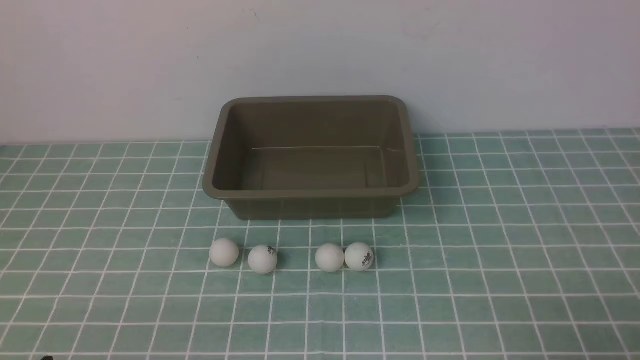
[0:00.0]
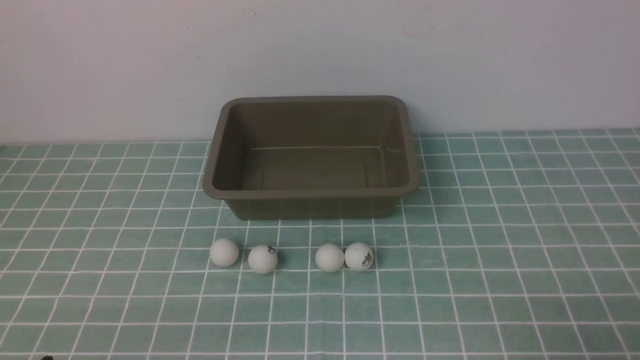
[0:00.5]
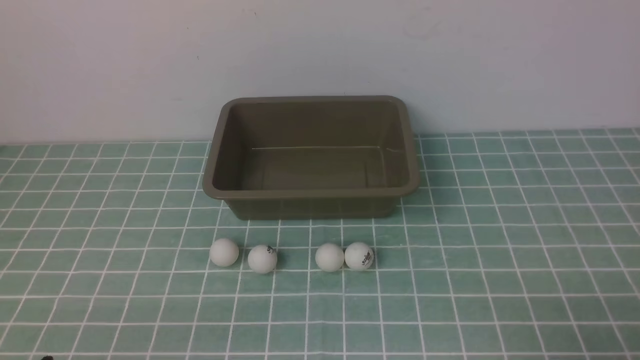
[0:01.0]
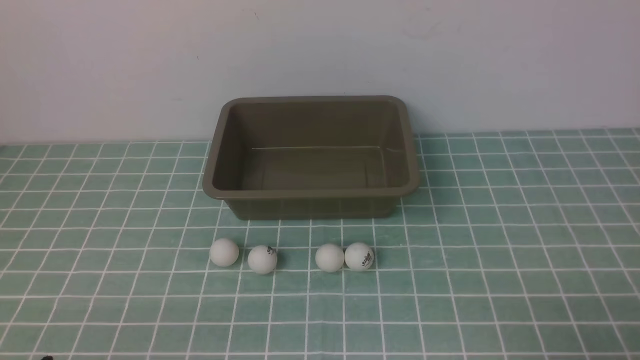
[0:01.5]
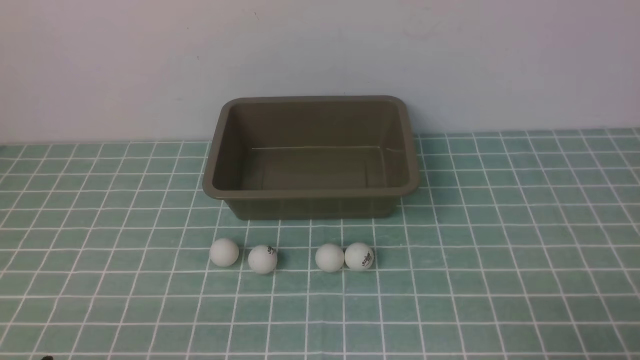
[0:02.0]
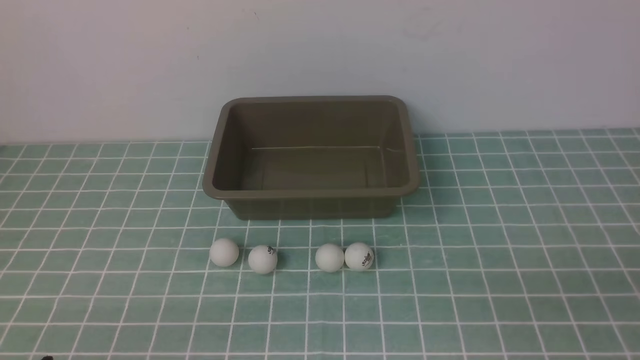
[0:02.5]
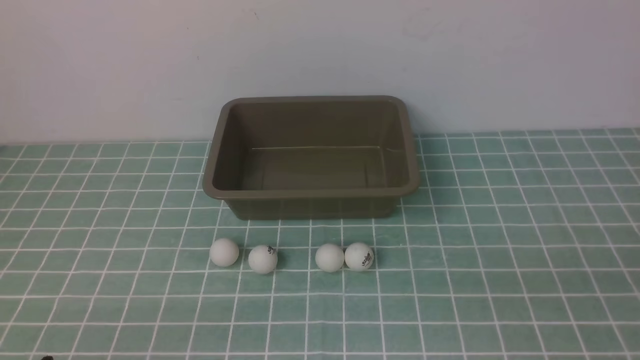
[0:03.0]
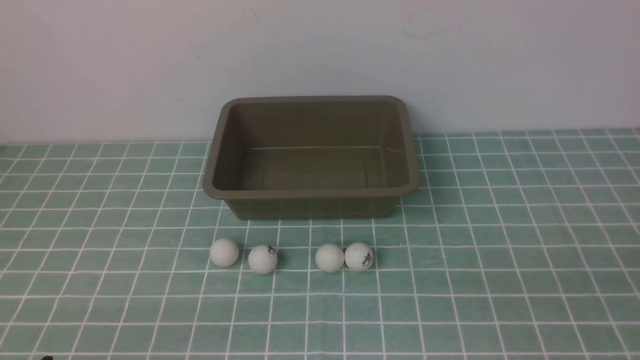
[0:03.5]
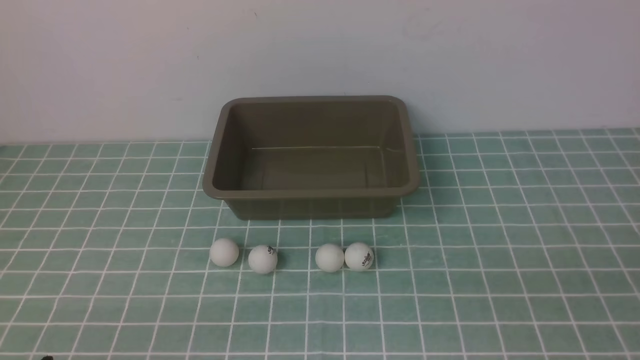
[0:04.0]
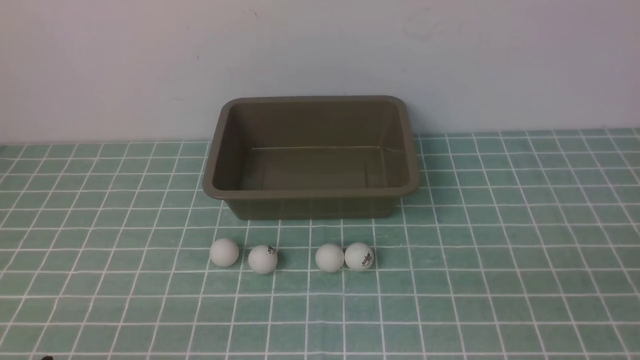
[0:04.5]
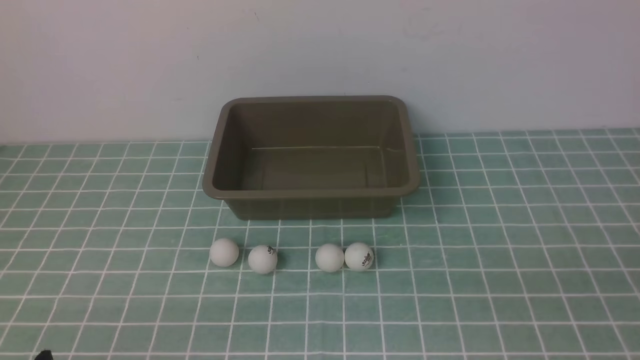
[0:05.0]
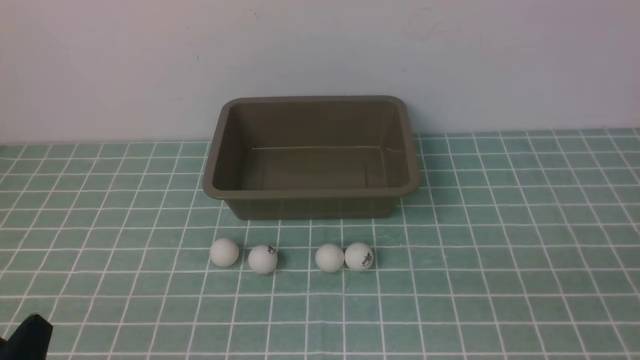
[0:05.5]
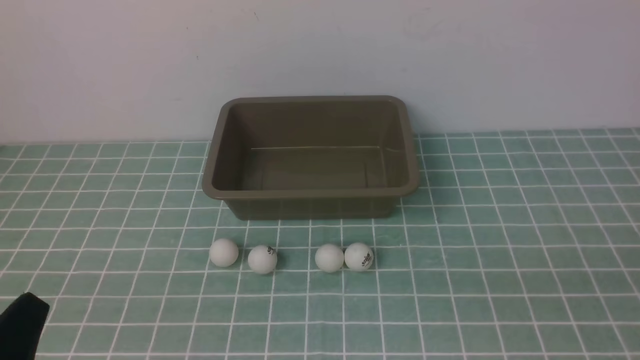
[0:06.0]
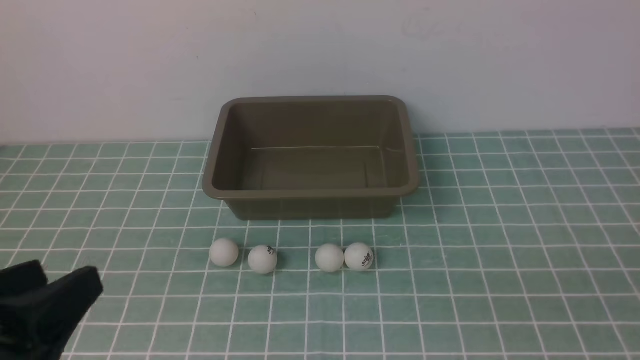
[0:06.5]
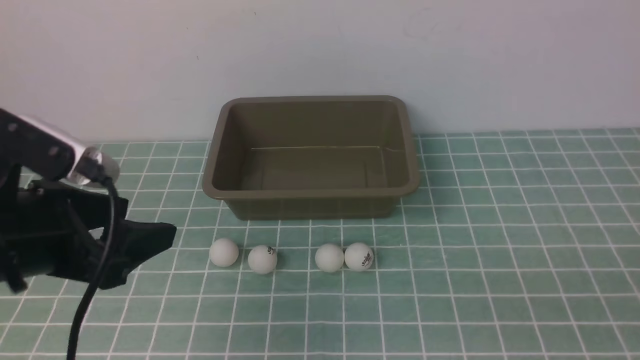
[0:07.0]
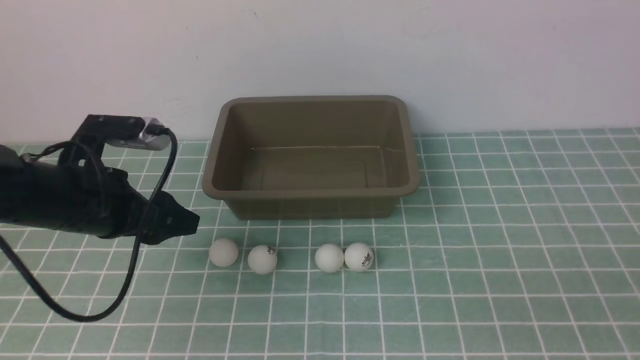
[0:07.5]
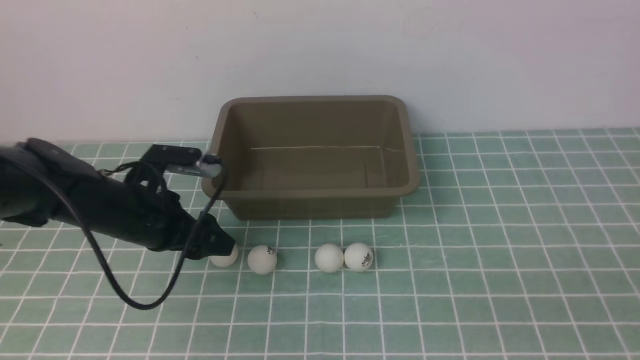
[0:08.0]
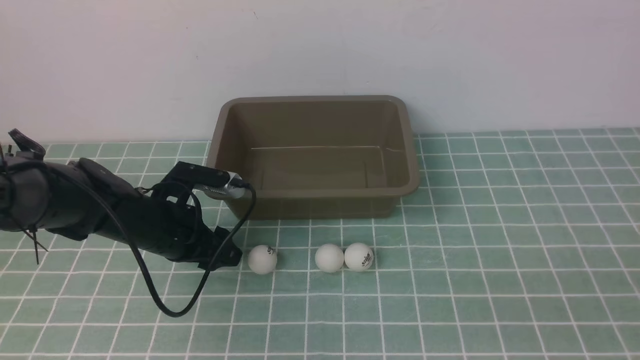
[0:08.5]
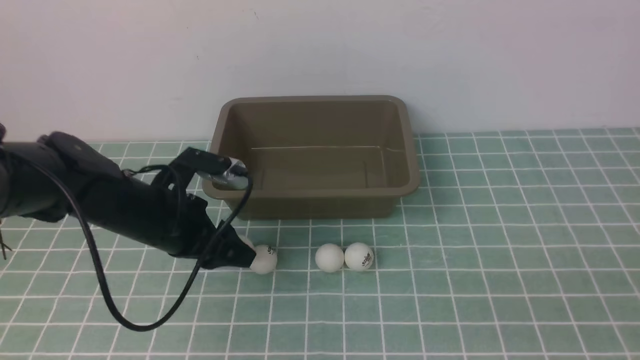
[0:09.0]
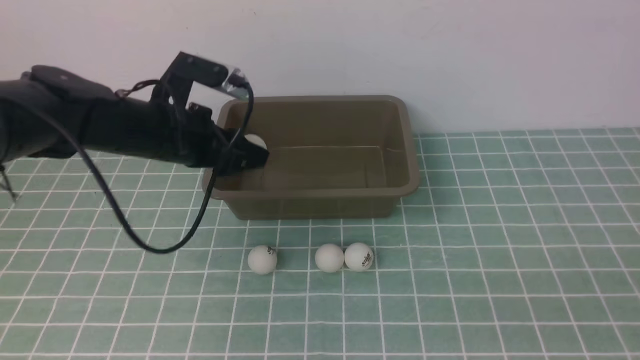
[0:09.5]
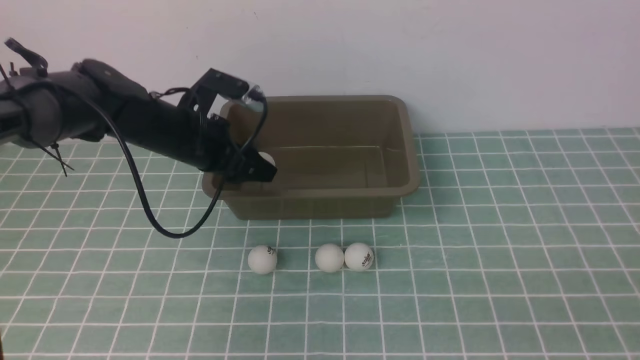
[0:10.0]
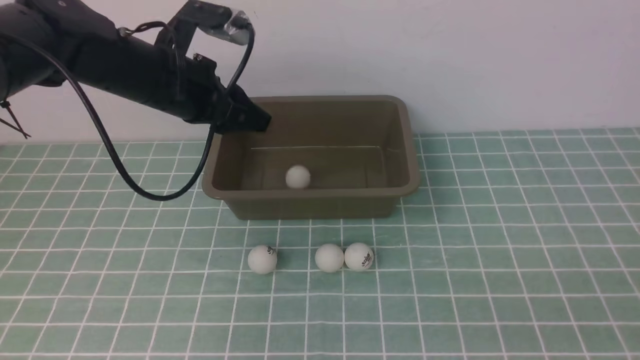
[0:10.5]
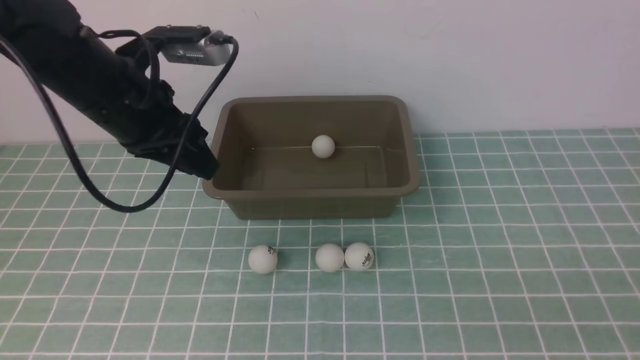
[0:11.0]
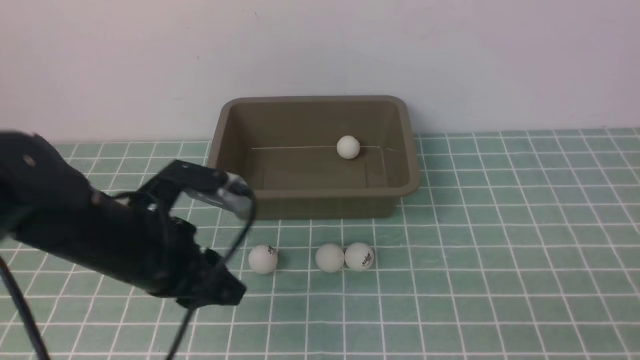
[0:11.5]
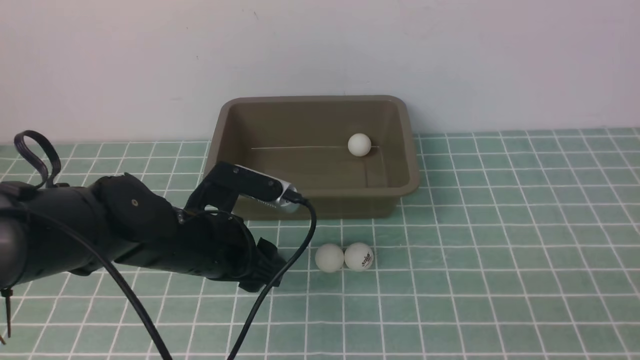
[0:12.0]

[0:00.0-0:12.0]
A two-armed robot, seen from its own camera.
Step, 0:00.0 to 0:08.5: use the left arm to clamp the table tennis ball closest to it.
Step, 0:09.5 to 0:10.0: use the left arm to put the table tennis ball into the box.
0:00.0 to 0:02.0: Both grippers stay put.
0:04.0 to 0:06.0: The left gripper goes approximately 10 cm upward.
0:06.0 to 0:08.0: The left gripper is displaced forward by about 30 cm.
0:08.0 to 0:10.0: The left gripper goes about 10 cm forward and upward, and closes its fingers.
0:10.0 to 0:12.0: The left gripper heads backward, covering about 15 cm, and closes, then opens again.

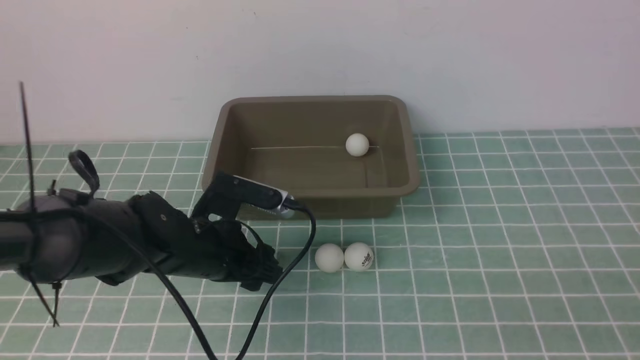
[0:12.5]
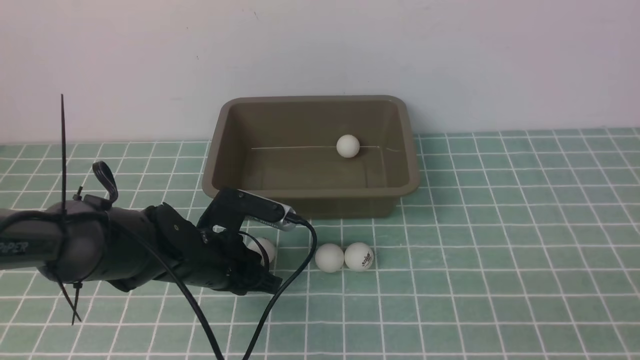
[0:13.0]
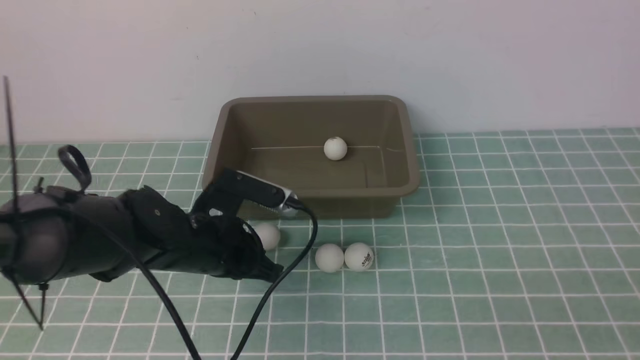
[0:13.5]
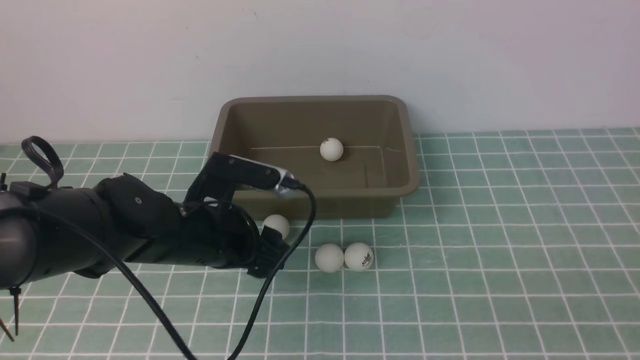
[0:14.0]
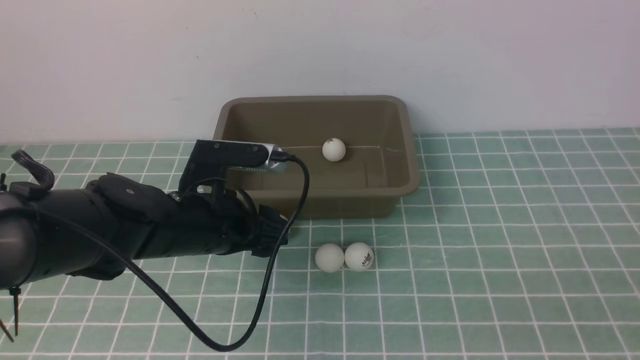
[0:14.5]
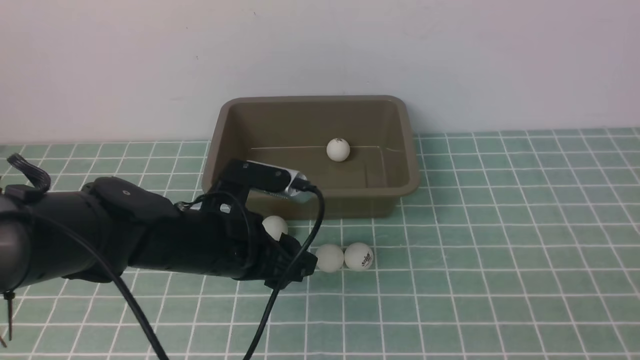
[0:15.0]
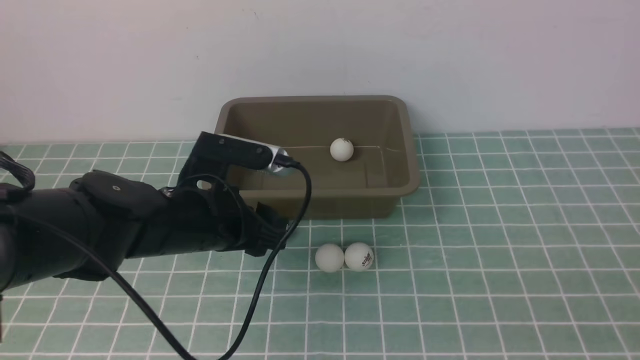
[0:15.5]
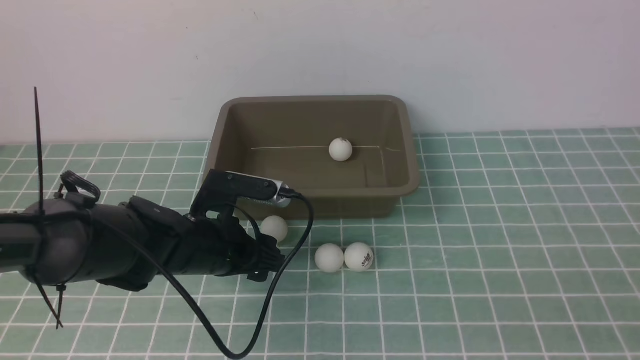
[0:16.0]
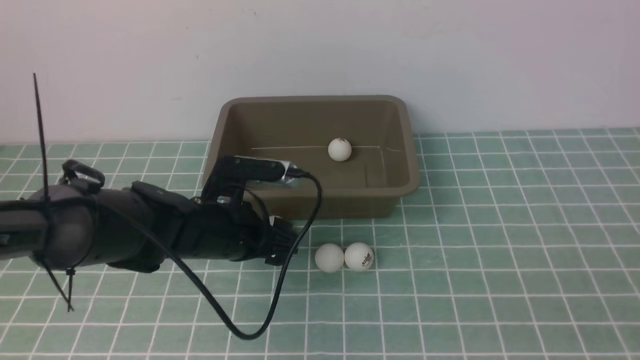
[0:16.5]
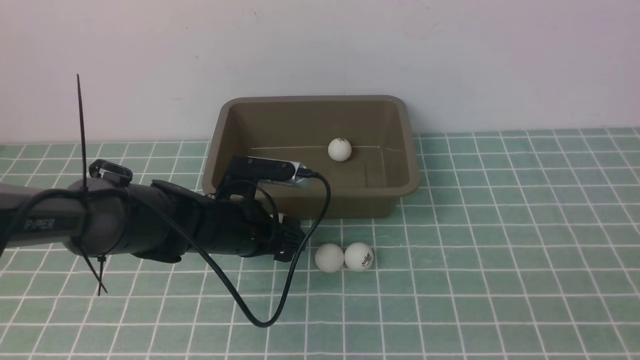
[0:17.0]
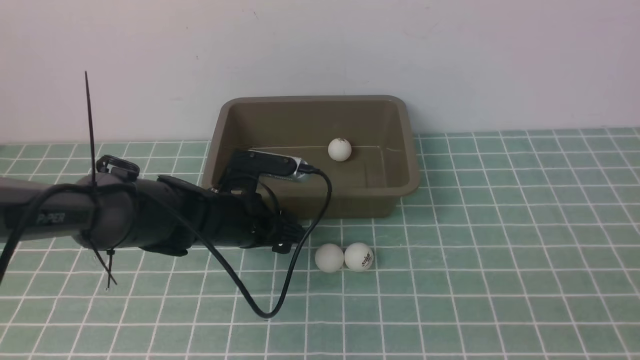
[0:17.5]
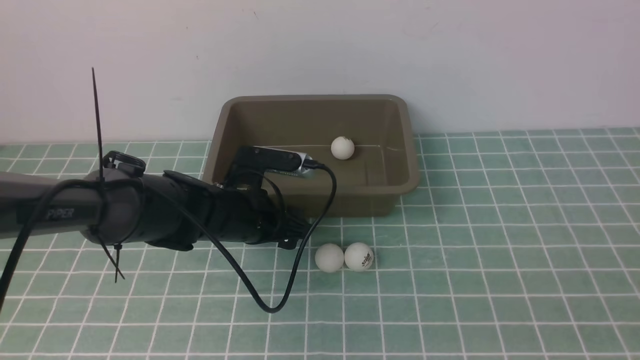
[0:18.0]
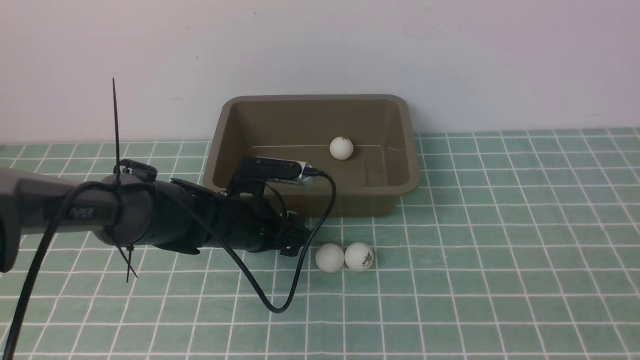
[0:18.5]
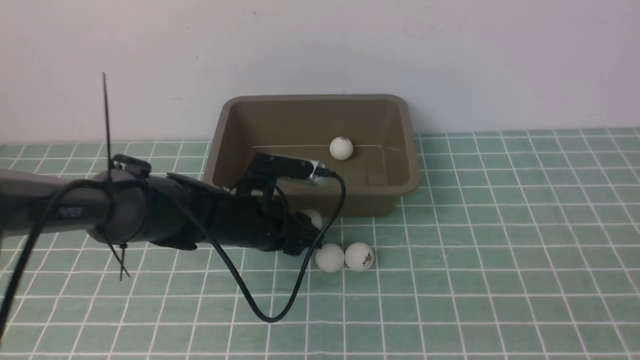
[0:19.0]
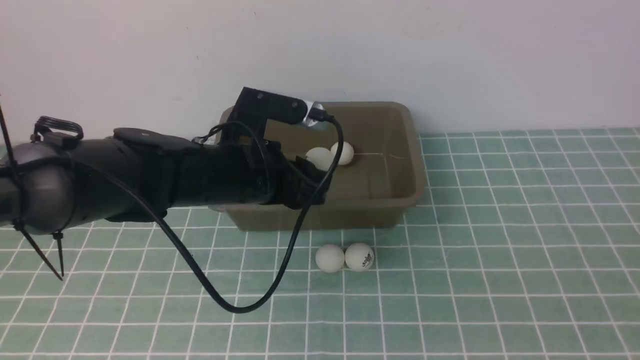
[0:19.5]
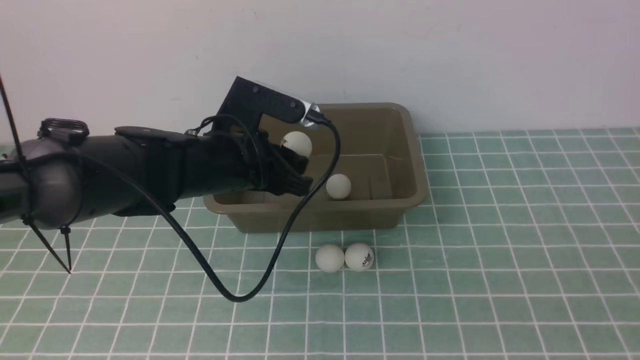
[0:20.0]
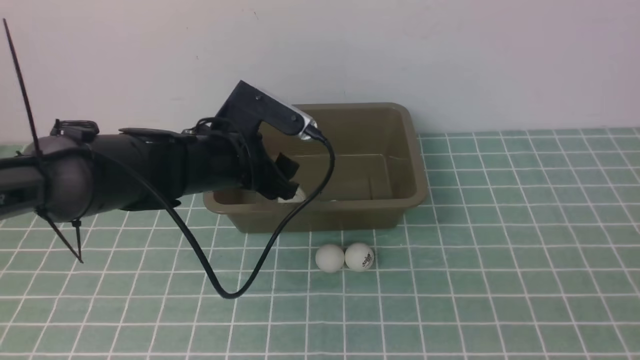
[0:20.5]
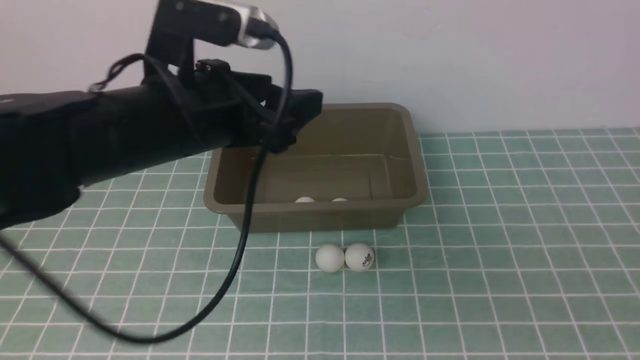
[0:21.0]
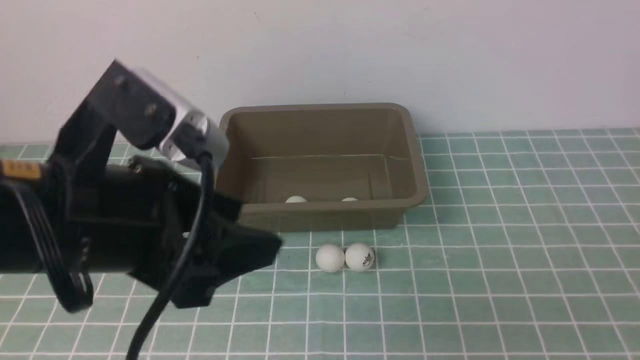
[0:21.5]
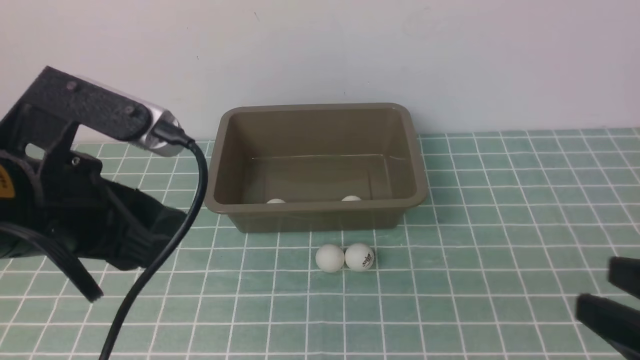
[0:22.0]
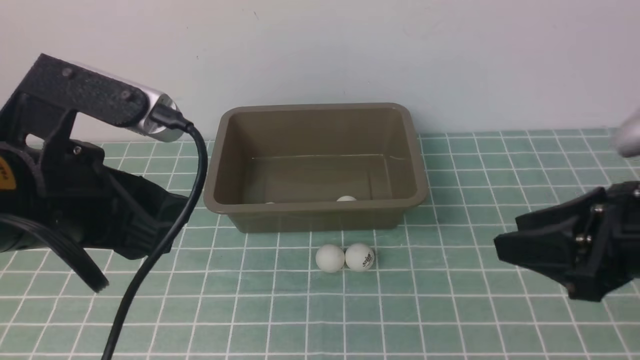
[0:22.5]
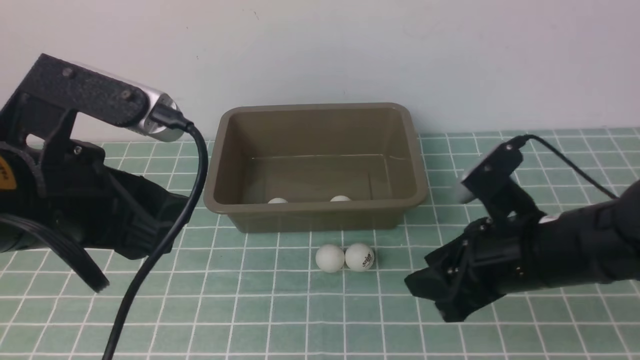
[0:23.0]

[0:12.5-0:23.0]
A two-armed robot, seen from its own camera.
Step, 0:12.5 to 0:19.0: use the left arm to clamp the table tennis ball closest to it.
Step, 0:19.5 to 0:20.5: use the left arm to put the table tennis ball into the box.
0:12.5 to 0:14.5: The left gripper closes and opens again.
0:16.5 to 0:19.0: The left gripper closes its fingers.
0:19.0 to 0:21.0: The left gripper heads upward and backward, covering some 25 cm, and opens up.
0:21.0 to 0:23.0: The right gripper goes approximately 25 cm forward, to the left and downward; the left gripper is displaced to the left by roughly 5 cm.
